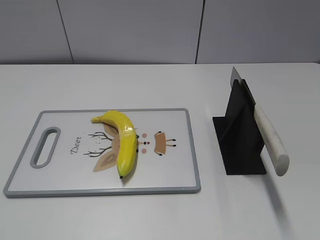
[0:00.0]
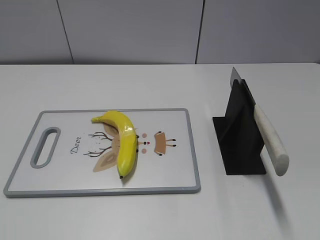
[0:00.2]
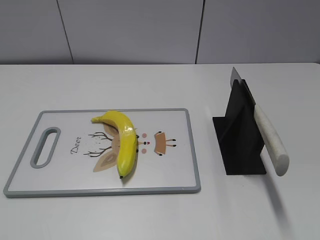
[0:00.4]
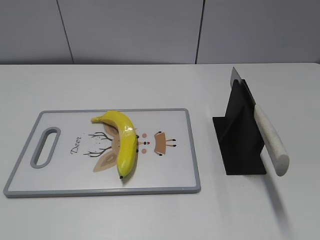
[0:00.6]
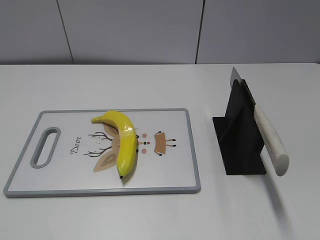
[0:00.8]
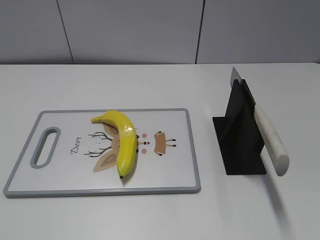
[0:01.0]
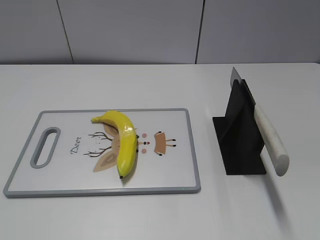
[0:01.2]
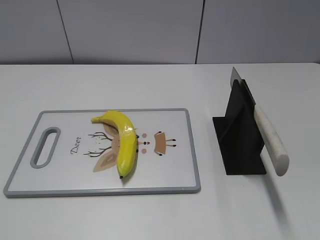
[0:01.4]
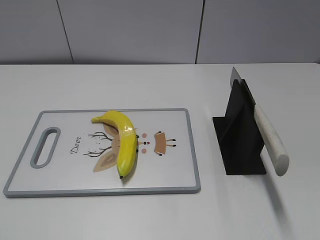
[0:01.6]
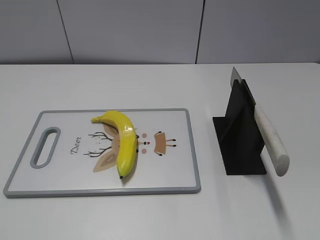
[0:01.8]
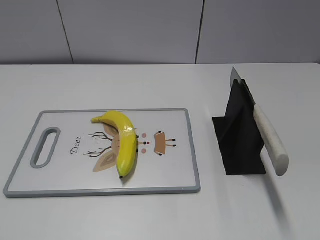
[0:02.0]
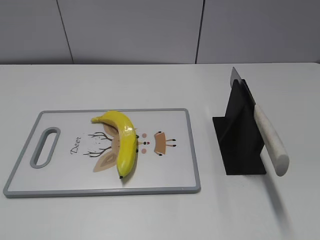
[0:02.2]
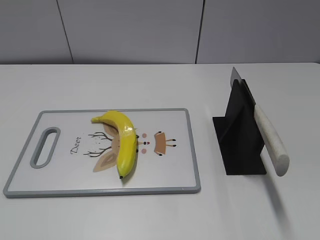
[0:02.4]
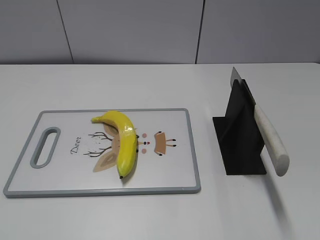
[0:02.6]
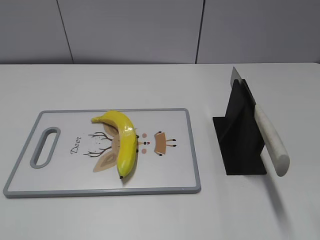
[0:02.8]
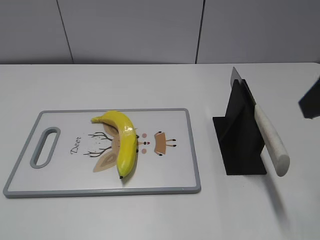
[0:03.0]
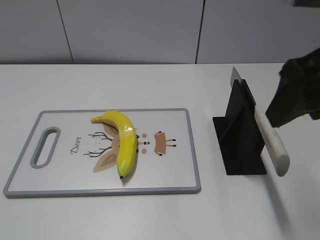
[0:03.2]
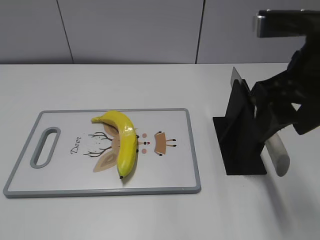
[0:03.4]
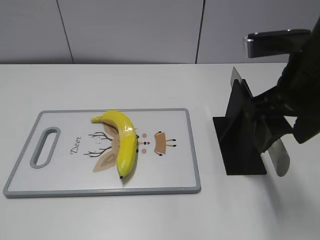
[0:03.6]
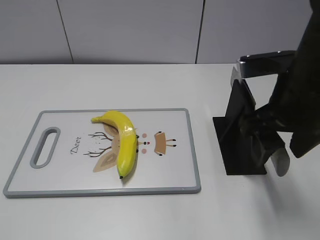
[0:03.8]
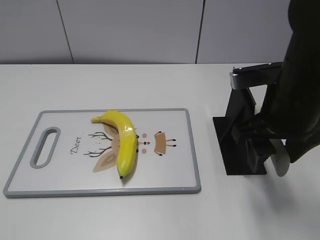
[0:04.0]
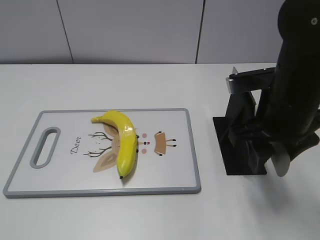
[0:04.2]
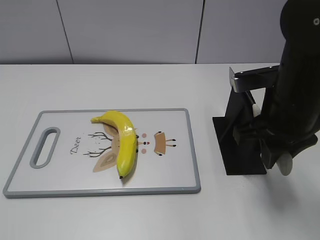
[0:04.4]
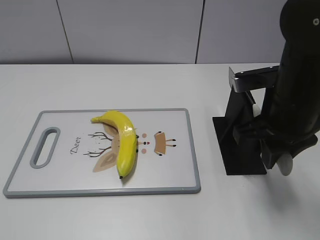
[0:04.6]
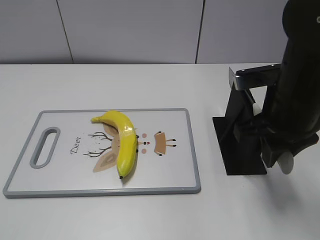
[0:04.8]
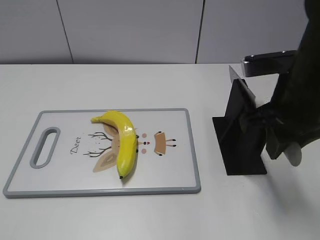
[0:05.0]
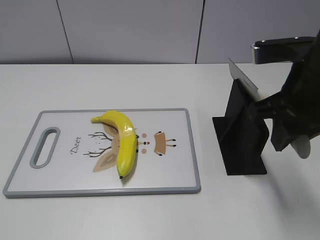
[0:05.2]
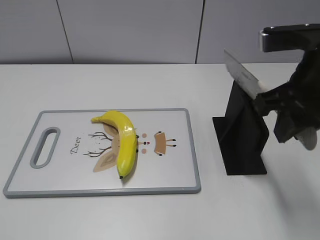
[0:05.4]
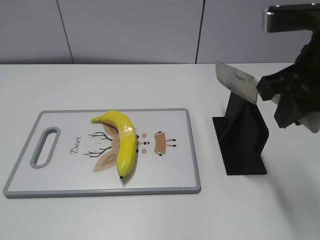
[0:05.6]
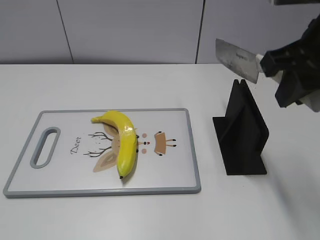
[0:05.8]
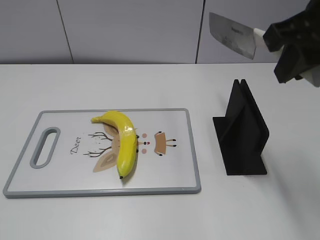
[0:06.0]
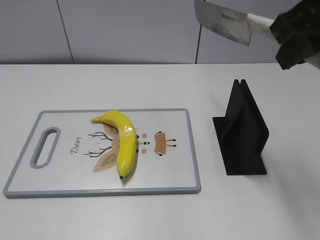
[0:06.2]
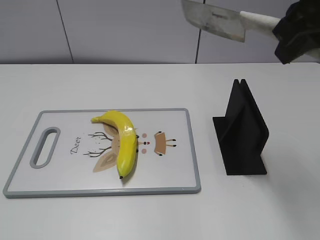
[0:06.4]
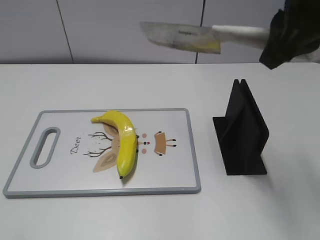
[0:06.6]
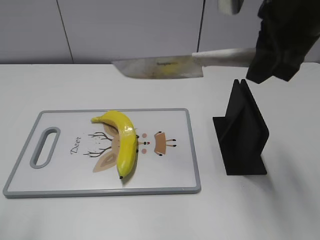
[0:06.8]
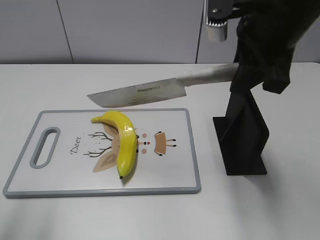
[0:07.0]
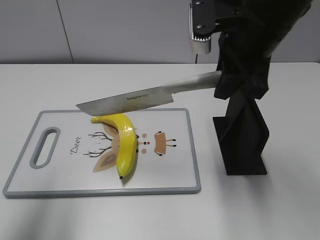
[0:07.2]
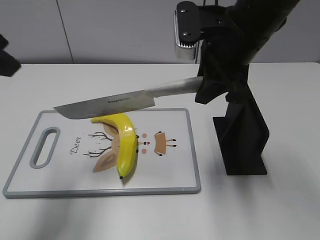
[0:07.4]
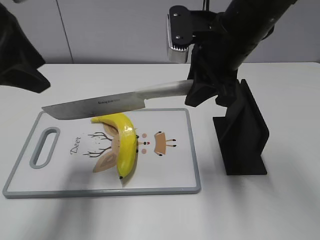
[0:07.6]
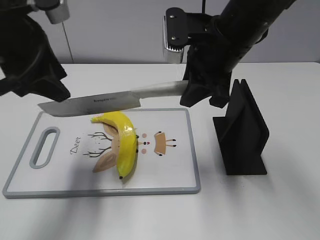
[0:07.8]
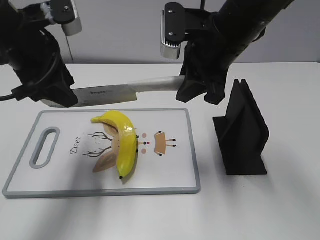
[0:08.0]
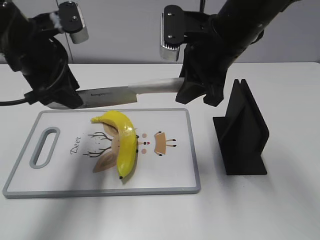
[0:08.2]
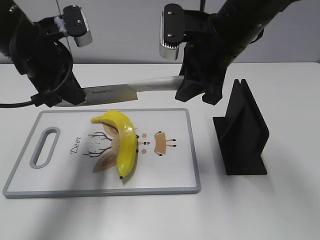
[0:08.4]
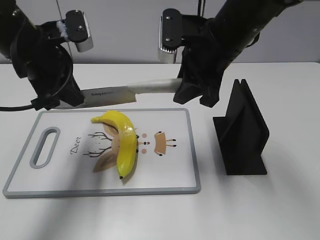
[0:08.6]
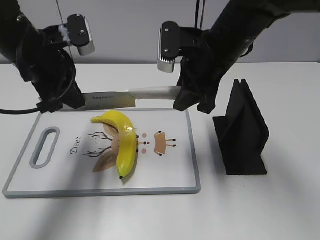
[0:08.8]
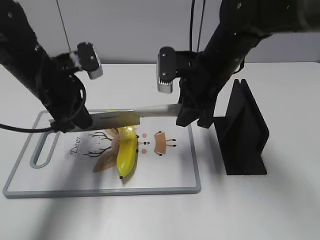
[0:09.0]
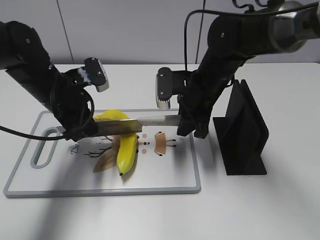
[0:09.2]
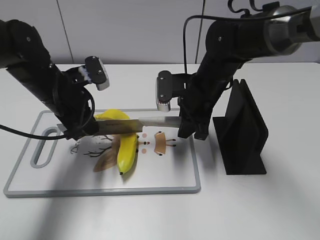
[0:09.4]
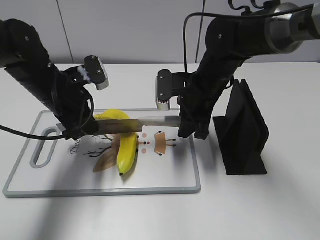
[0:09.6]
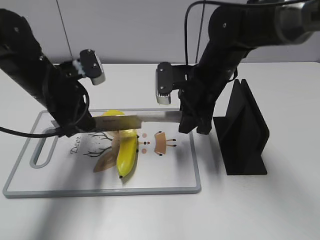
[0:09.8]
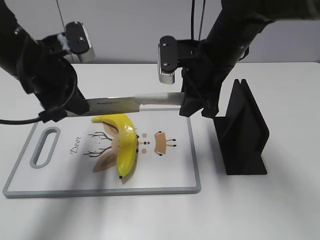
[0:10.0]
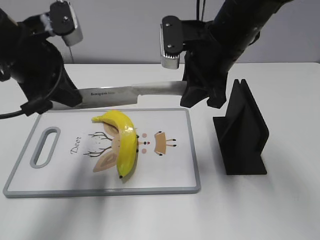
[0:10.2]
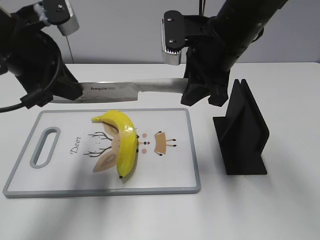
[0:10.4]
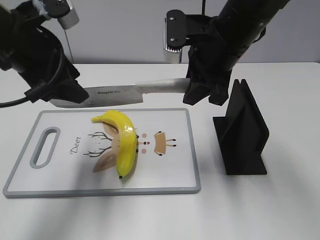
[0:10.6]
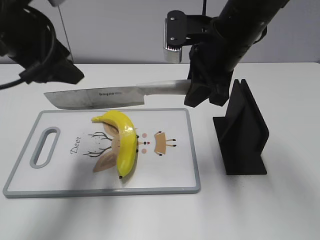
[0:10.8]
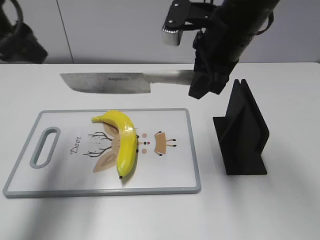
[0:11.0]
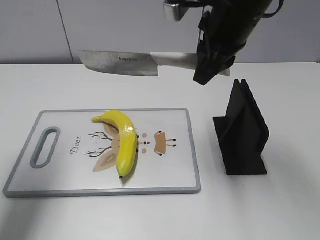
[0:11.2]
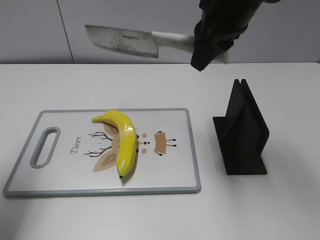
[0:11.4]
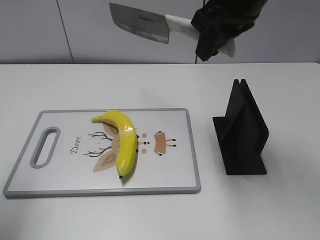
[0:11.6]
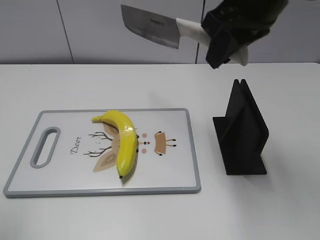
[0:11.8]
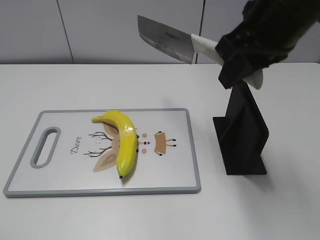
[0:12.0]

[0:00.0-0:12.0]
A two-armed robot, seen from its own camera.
Task of the whole recording: cut plastic banana.
Step, 0:00.0 to 0:05.4: Grab the knife handle with your right hand.
Step, 0:05.6 to 0:10.4: Lift the knife with your right hand.
Step, 0:10.6 to 0:11.8: Cut the banana with your right hand.
0:01.6 to 0:03.0: The right gripper heads forward and upward, covering some 20 cm.
0:03.0 to 0:04.4: The right gripper goes roughly 15 cm downward, forward and to the left, and closes.
0:04.4 to 0:06.0: The right gripper is displaced upward by some 15 cm.
0:06.0 to 0:07.6: The right gripper heads downward, forward and to the left, covering some 15 cm. Meanwhile the left gripper is displaced forward by some 25 cm.
0:07.6 to 0:09.0: The left gripper shifts roughly 15 cm downward and forward, and closes; the right gripper goes roughly 10 cm downward.
0:09.0 to 0:10.4: The grippers both shift upward by some 5 cm.
0:10.4 to 0:12.0: The right gripper goes some 10 cm upward and backward; the left gripper heads backward and to the left, covering roughly 25 cm, and opens.

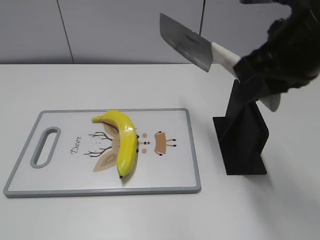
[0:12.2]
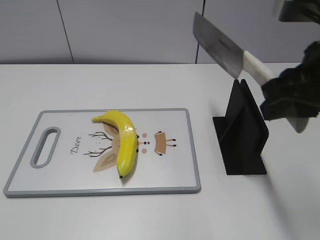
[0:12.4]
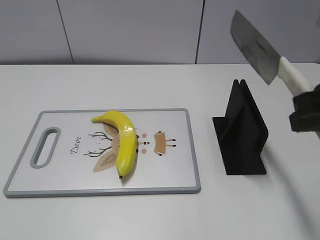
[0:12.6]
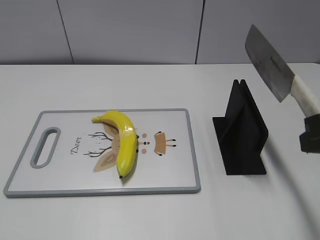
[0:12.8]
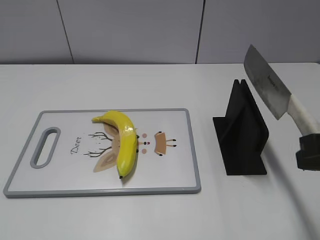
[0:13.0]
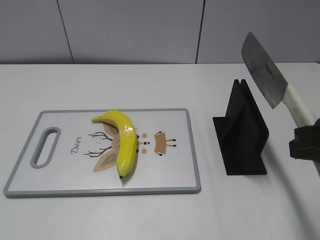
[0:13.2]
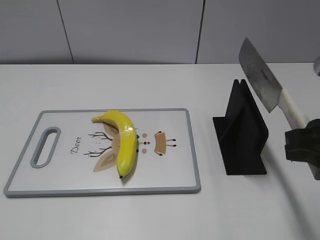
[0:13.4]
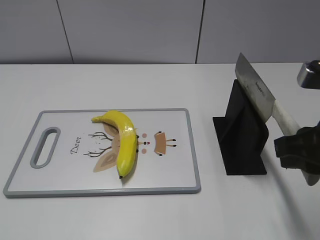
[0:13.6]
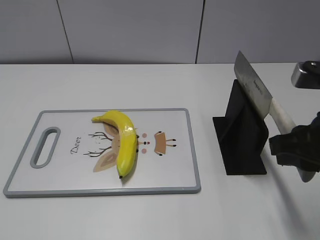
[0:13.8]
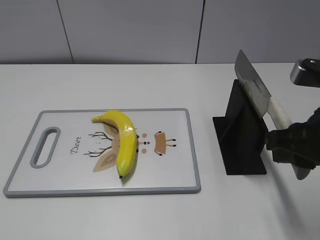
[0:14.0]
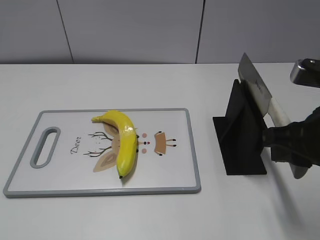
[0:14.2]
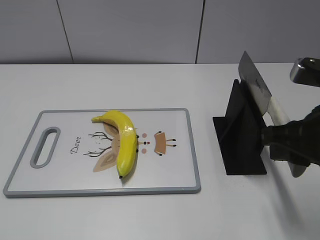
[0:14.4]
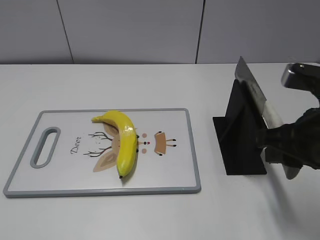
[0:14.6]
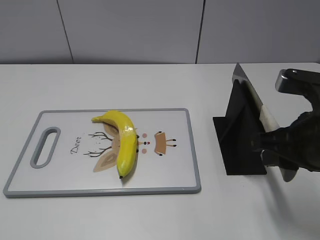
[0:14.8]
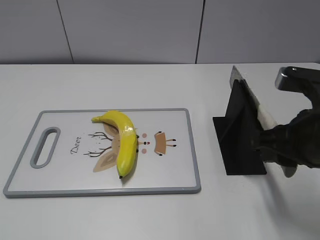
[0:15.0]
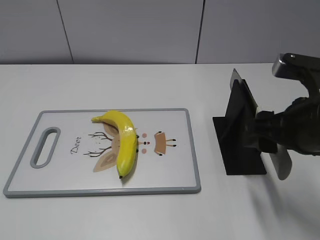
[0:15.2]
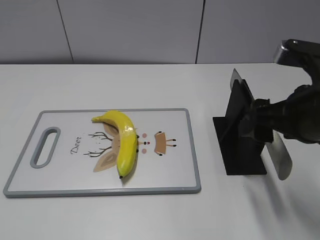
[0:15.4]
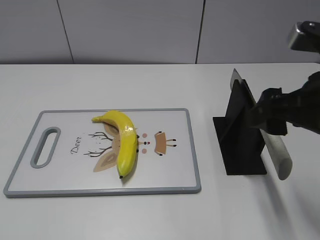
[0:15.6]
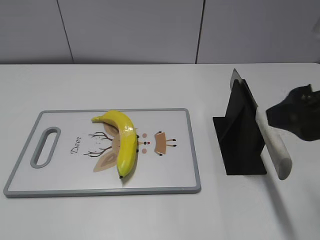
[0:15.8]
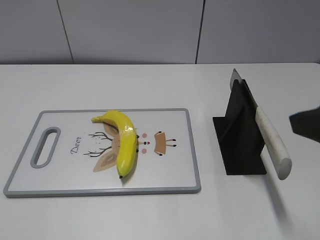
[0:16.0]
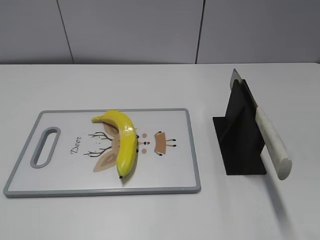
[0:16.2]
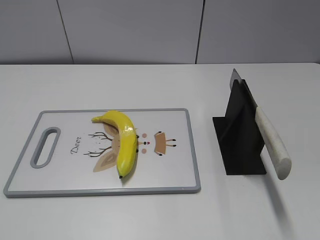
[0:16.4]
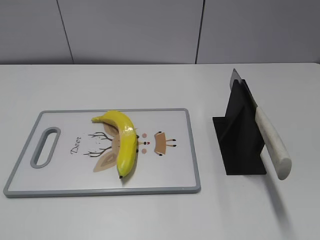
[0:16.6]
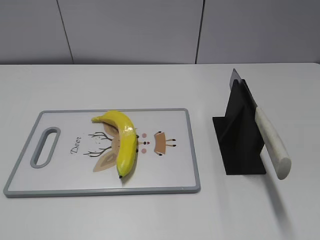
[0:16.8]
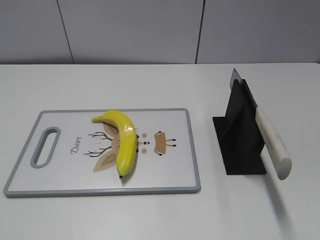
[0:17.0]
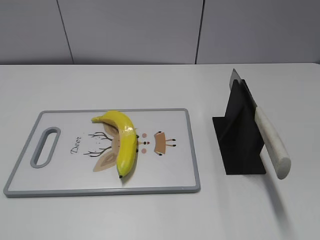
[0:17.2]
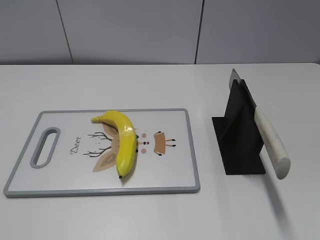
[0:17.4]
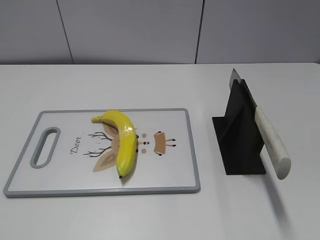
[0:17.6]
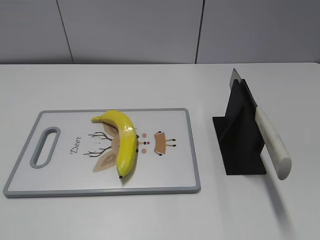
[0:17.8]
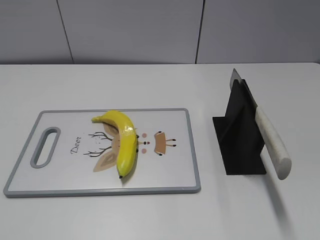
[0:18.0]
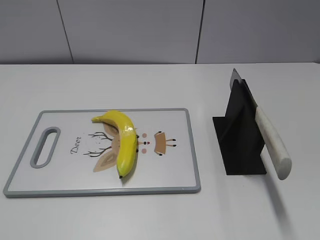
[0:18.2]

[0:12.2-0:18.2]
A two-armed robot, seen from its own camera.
Task of the whole recording: cut plastic banana.
Step, 0:12.2 to 0:12.8: Lift the knife with your right hand.
Step, 0:13.0 to 0:18.2: Place the knife on the storage rack with your right hand.
0:12.2 to 0:13.8: The right gripper shifts about 10 cm downward, backward and to the right.
0:13.8 to 0:15.2: The right gripper opens up.
0:15.2 to 0:16.6: The right gripper travels backward and to the right by approximately 20 cm, and opens its fingers.
